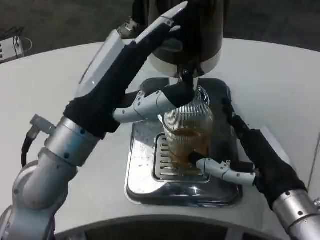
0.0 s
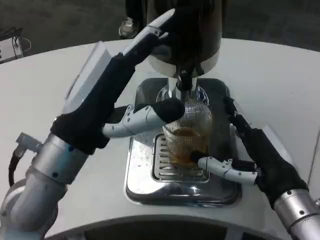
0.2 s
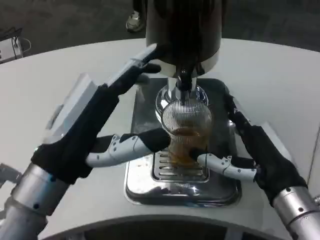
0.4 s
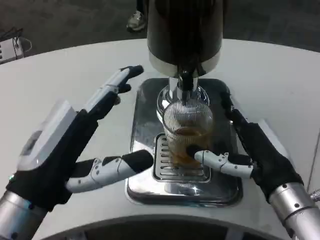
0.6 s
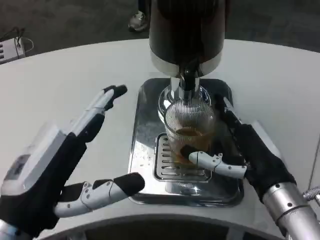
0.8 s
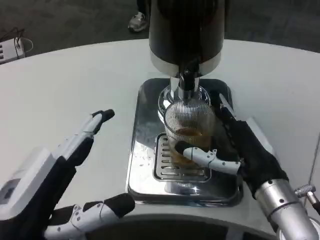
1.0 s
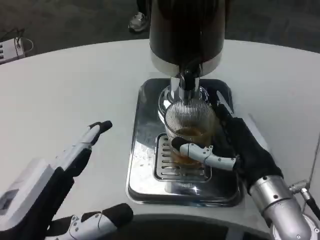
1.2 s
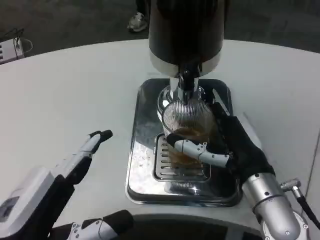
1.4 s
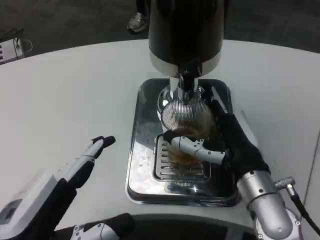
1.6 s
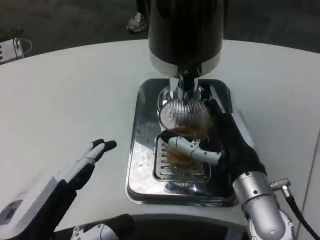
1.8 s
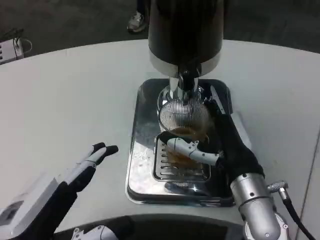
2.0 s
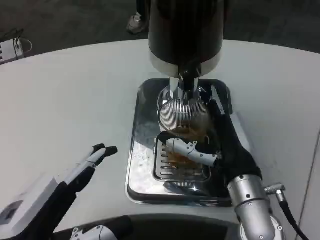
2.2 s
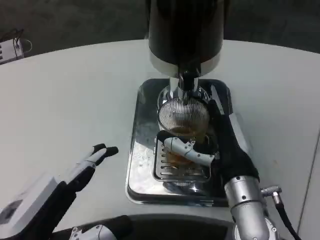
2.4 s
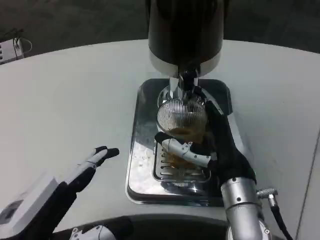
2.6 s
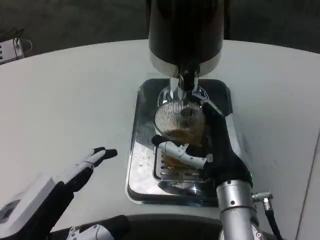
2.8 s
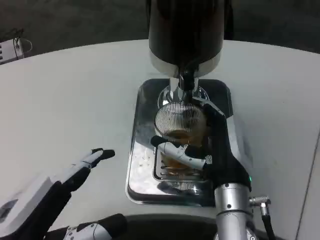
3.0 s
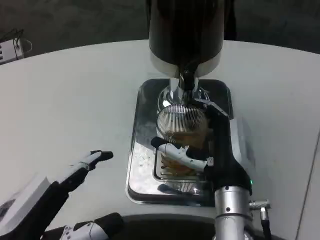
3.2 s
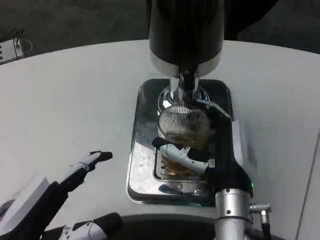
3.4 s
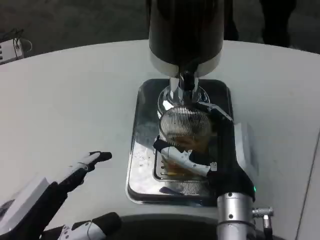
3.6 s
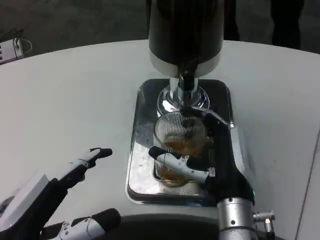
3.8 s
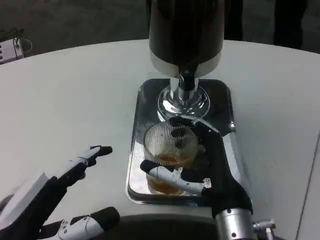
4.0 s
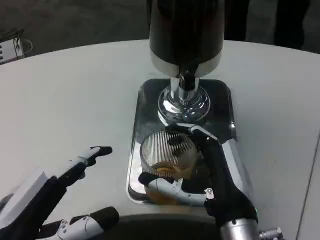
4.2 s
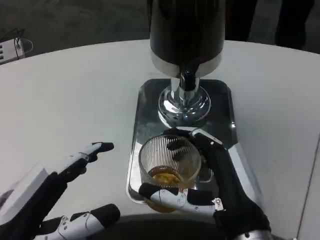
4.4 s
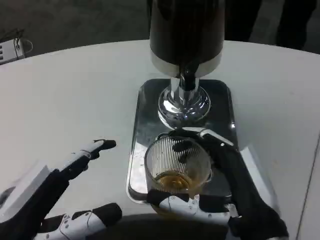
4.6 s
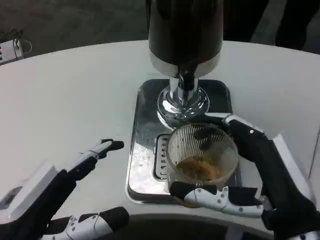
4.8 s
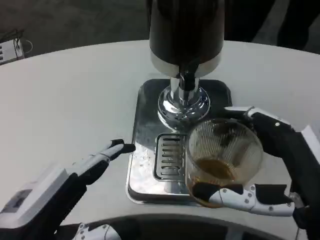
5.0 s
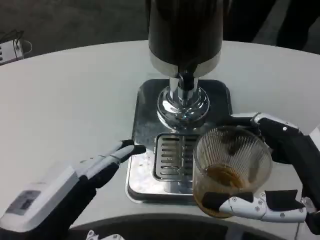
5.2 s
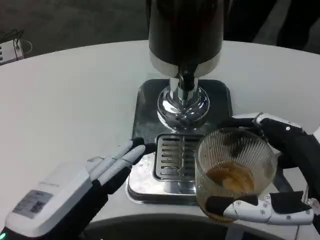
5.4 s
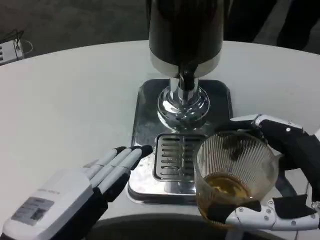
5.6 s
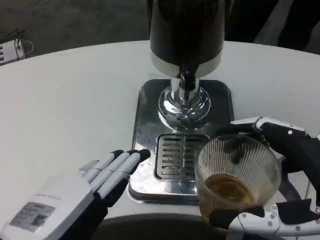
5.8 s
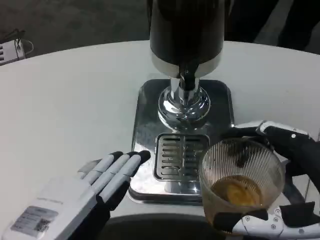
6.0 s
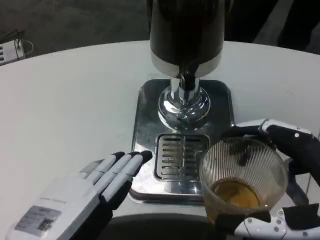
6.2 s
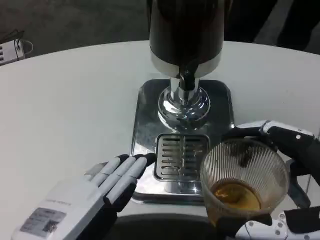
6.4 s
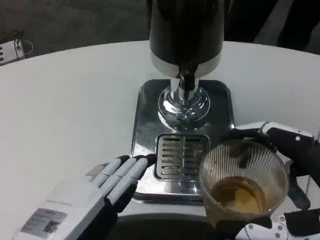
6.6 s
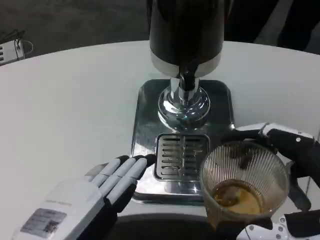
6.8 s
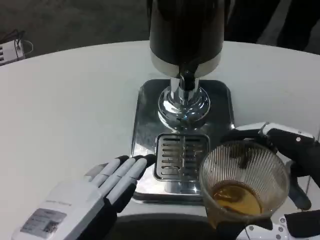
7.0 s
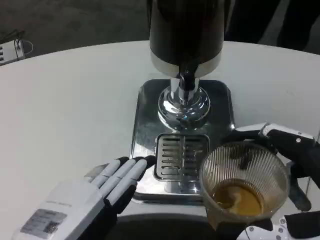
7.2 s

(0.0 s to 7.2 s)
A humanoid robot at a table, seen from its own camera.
Task of the whole recording: Grasp the cup under the faucet to collect the drink, then remove the cup.
0.0 s - 1.4 s: The left hand heads backward, downward and to the left, covering roughly 15 cm.
1.4 s - 2.8 s: The right hand goes some 5 cm to the left.
2.8 s - 4.4 s: The right hand is displaced backward by roughly 10 cm.
4.4 s - 5.8 s: The right hand shifts approximately 15 cm to the right, backward and upward.
5.8 s - 7.2 s: Both hands stay about where they are.

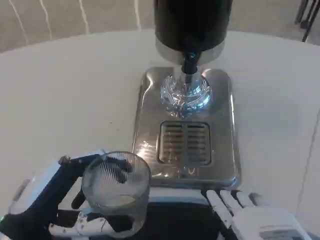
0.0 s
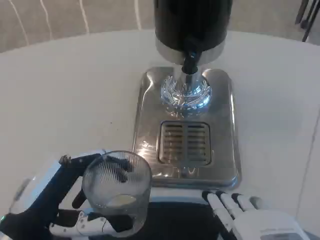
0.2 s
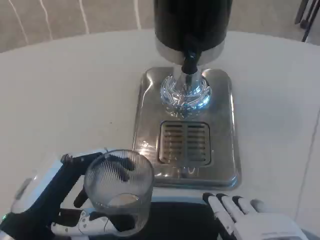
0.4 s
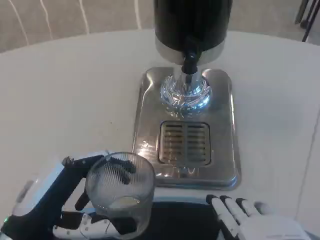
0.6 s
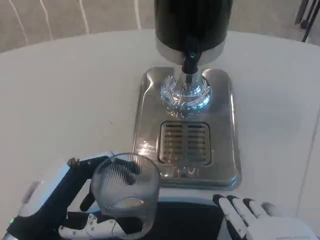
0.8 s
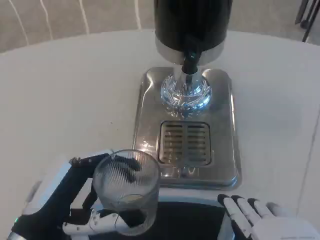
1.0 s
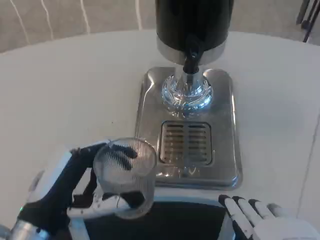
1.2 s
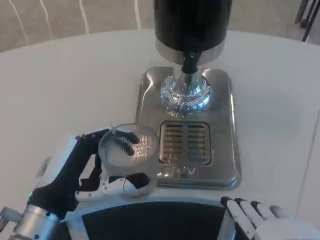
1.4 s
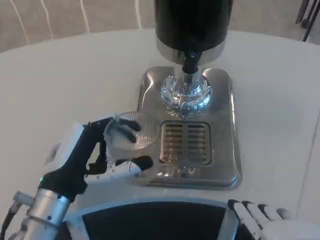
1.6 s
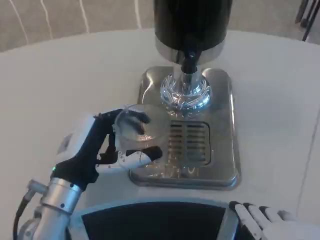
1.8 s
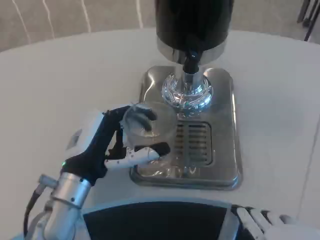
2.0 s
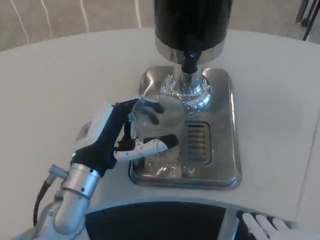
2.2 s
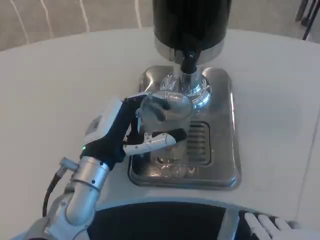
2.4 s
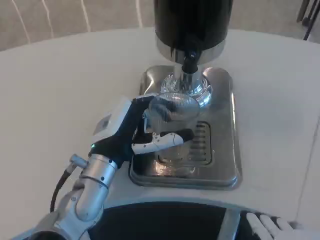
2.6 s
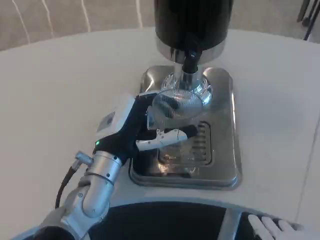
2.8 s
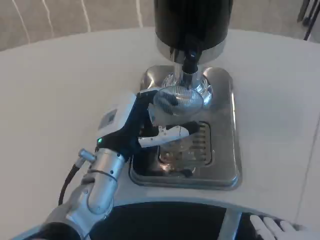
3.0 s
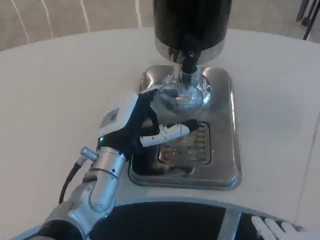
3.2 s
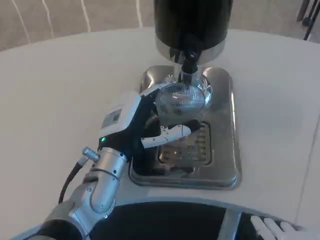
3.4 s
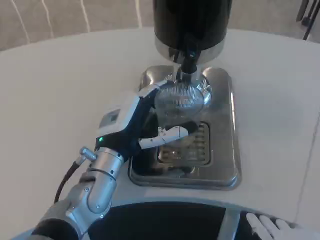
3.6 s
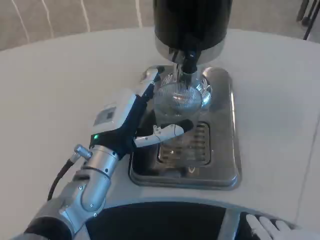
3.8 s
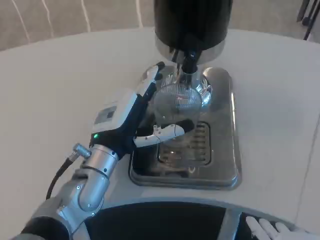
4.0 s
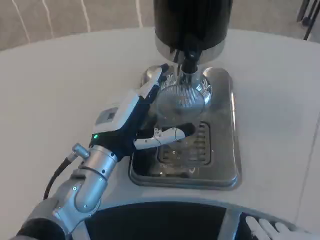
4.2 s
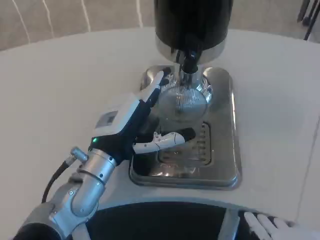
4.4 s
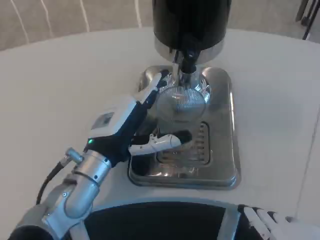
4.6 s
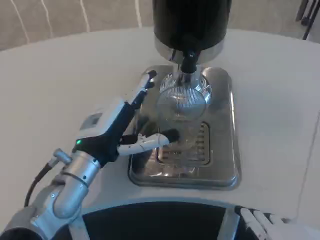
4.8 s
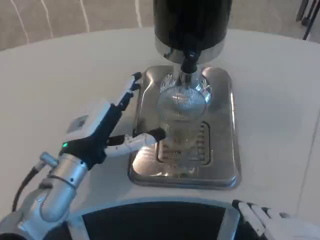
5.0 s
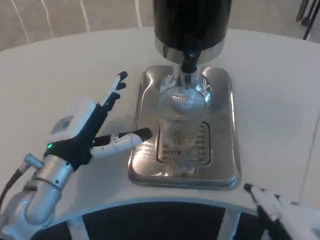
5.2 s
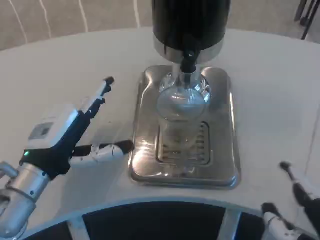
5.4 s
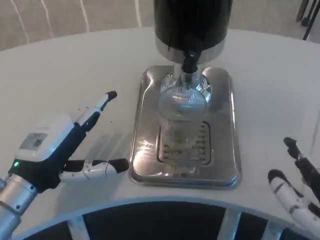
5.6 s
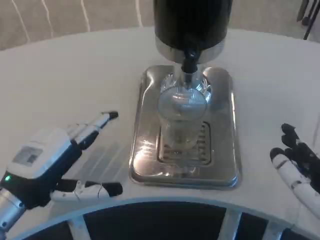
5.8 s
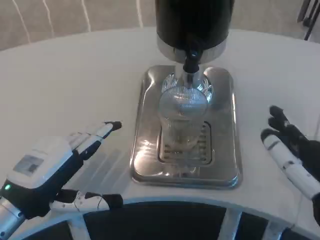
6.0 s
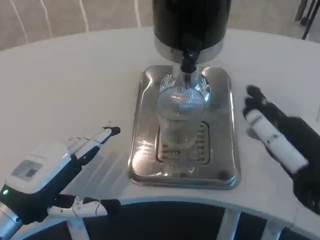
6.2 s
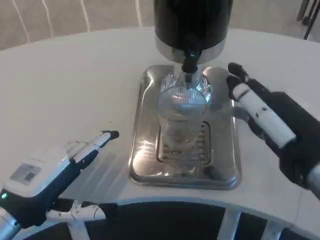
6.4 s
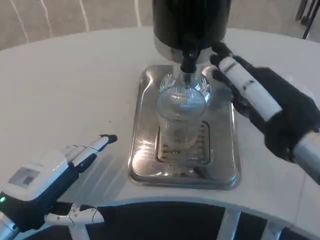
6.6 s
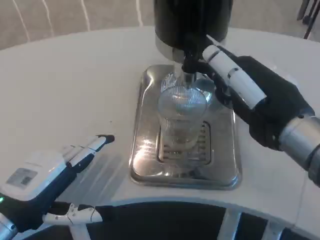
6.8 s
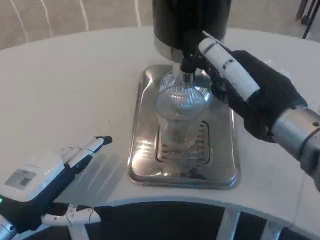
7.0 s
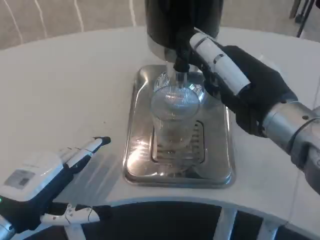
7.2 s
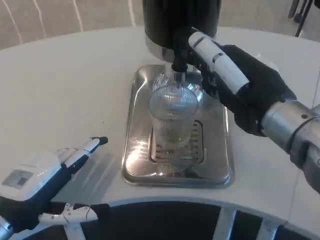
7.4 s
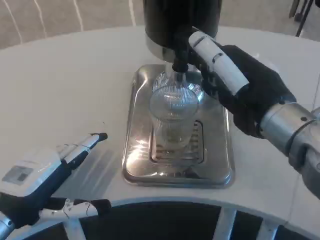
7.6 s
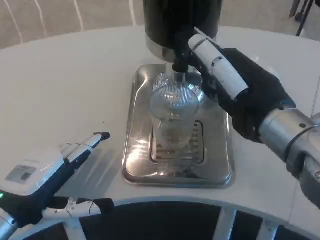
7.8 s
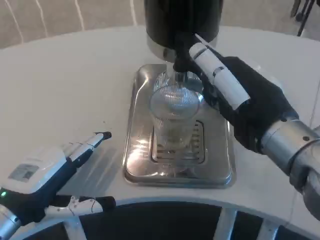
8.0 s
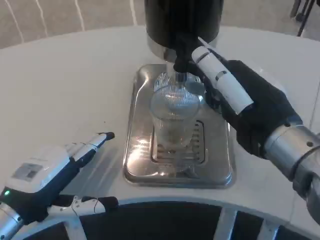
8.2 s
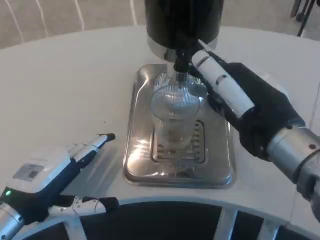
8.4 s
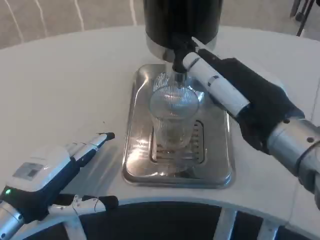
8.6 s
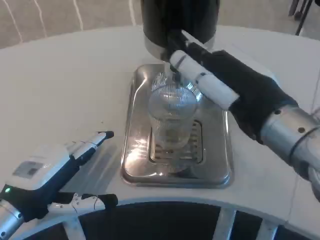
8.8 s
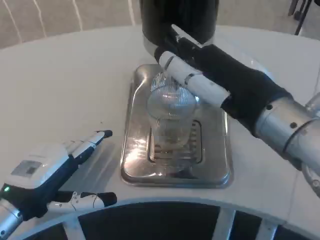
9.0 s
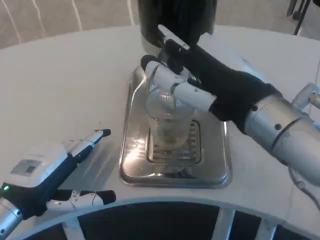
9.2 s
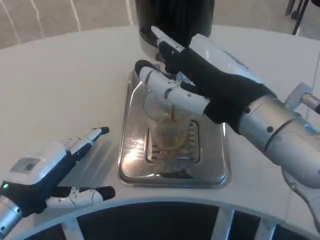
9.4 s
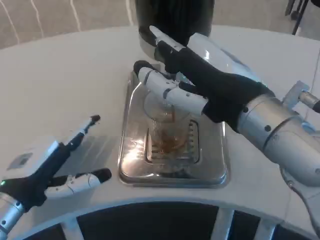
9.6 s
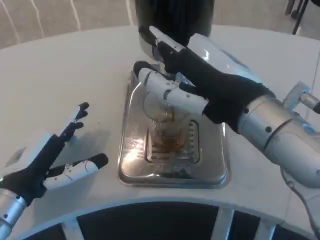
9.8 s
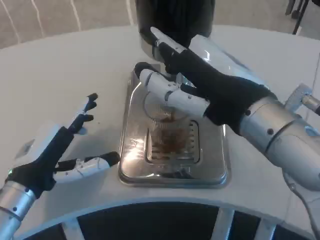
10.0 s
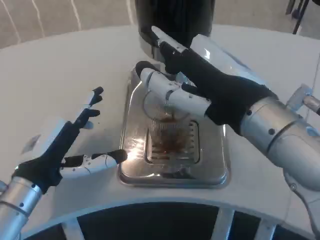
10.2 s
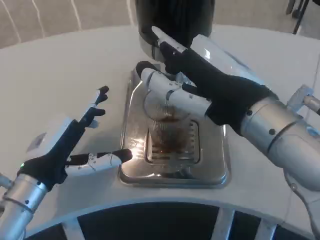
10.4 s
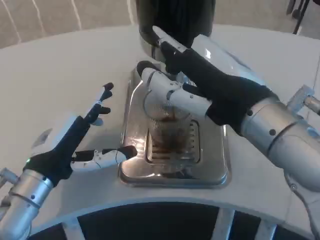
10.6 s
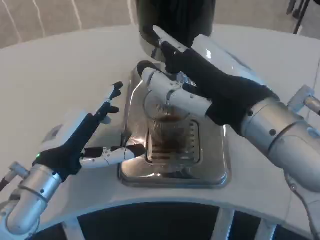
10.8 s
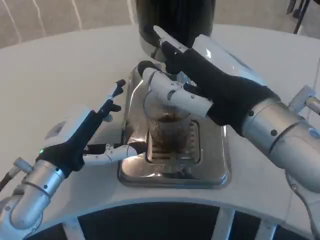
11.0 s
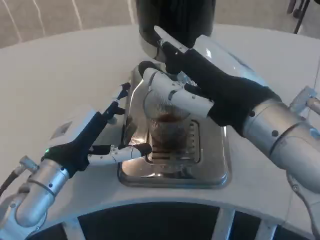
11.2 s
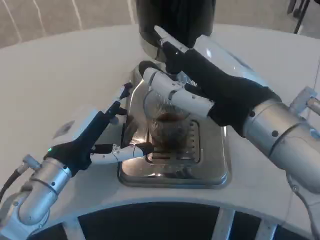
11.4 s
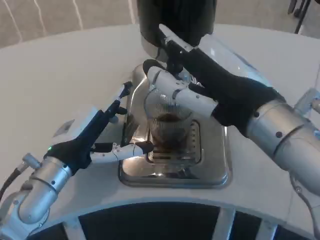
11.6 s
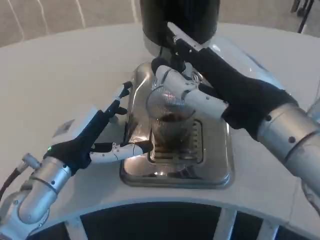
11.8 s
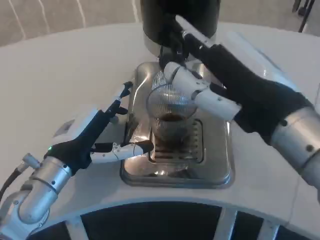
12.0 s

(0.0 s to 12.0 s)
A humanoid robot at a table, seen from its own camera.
Task of the whole recording: Grasp the cup under the faucet to collect the drink, then remove the cup.
0.0 s - 1.6 s: The left hand goes about 5 cm forward.
1.6 s - 3.0 s: The left hand moves to the right and forward, roughly 10 cm.
3.0 s - 4.4 s: The hands move only a little.
4.4 s - 6.0 s: The right hand is displaced forward by roughly 10 cm. Meanwhile the left hand heads to the left and backward, covering some 15 cm.
6.0 s - 7.6 s: The right hand goes about 15 cm upward, forward and to the left.

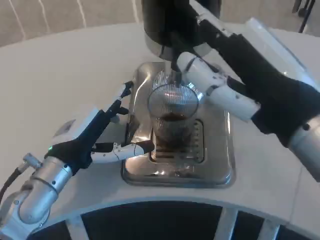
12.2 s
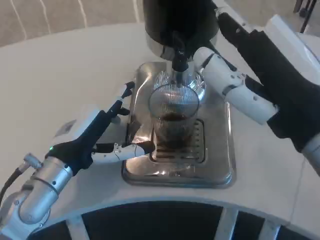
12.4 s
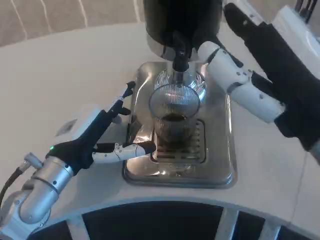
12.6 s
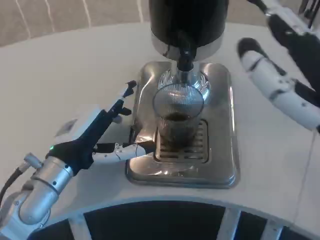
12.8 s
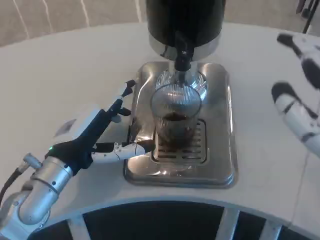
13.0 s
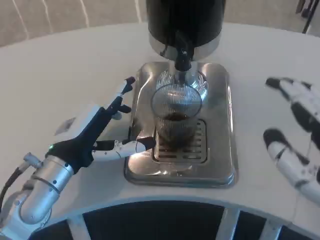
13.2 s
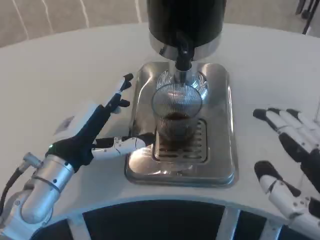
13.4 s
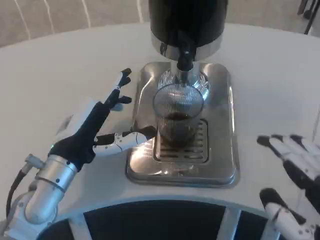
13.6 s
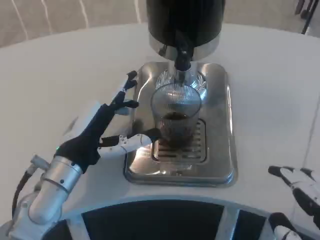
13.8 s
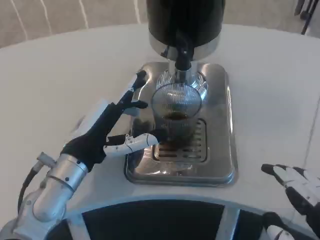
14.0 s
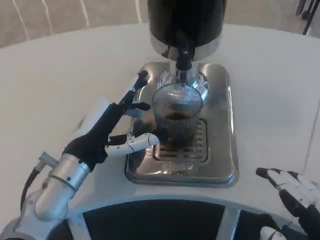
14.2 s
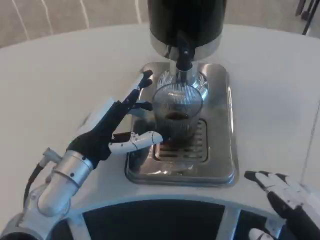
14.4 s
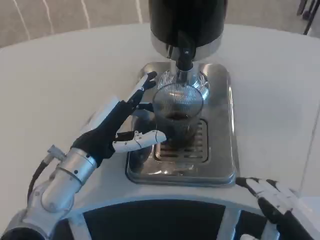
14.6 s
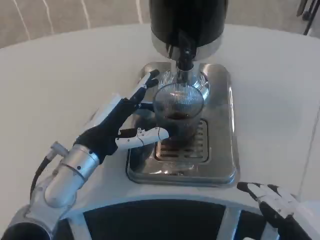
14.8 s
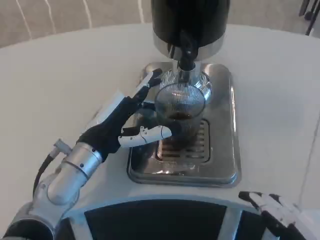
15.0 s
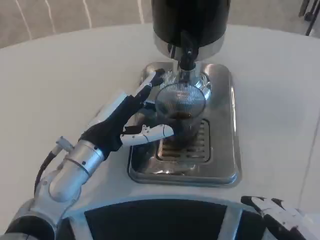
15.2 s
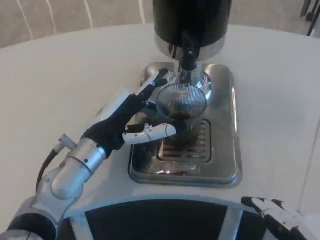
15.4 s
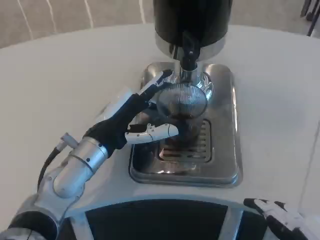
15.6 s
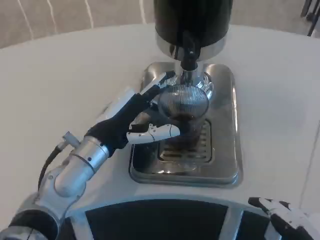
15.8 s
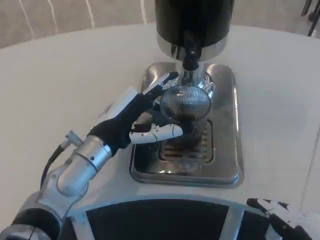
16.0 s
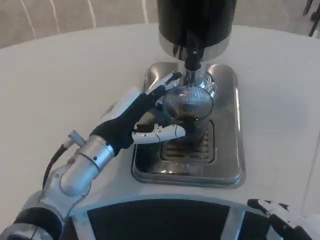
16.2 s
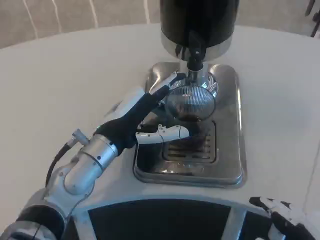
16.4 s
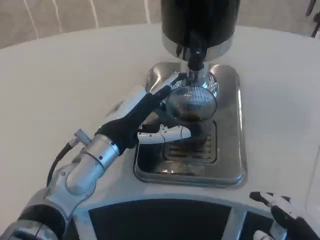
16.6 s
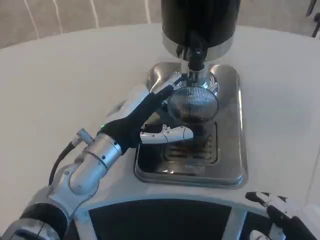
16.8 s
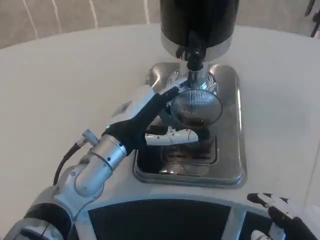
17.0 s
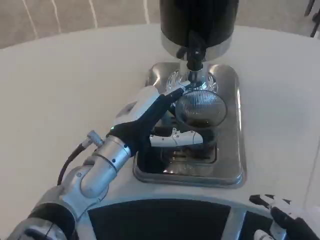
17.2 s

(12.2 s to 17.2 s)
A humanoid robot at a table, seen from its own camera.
Task of the whole recording: Grasp the cup under the faucet to collect the drink, then remove the cup.
12.2 s - 13.8 s: The right hand shifts some 15 cm backward, downward and to the right.
